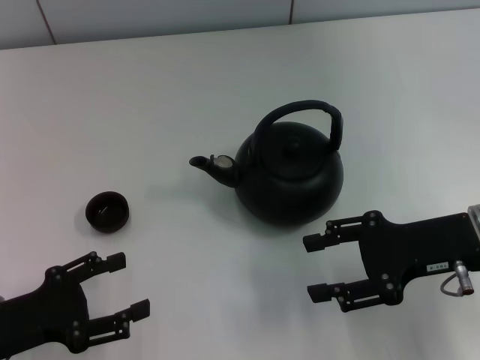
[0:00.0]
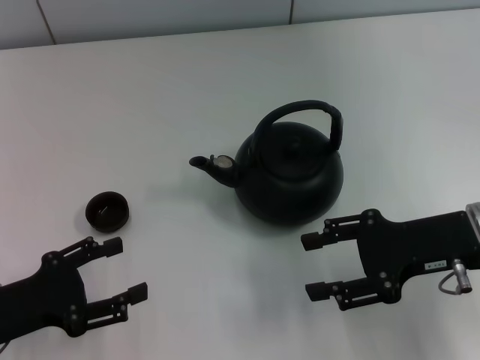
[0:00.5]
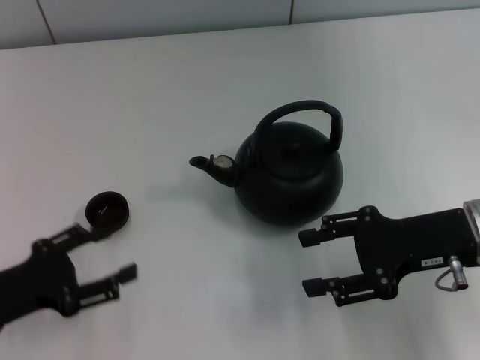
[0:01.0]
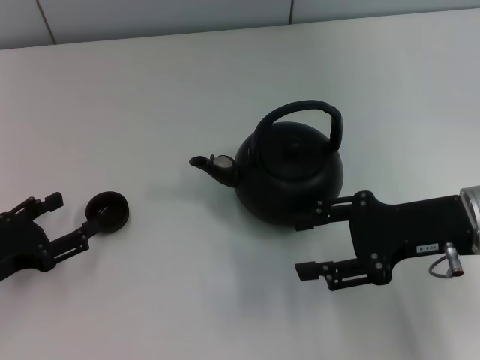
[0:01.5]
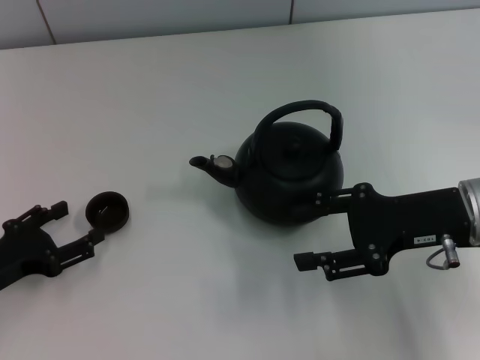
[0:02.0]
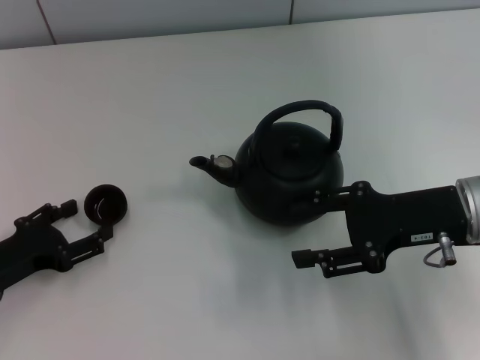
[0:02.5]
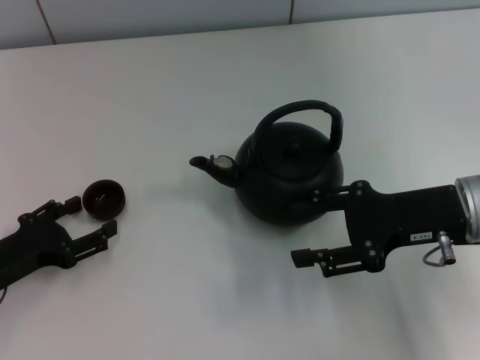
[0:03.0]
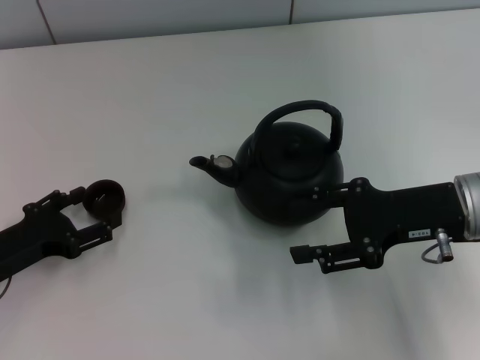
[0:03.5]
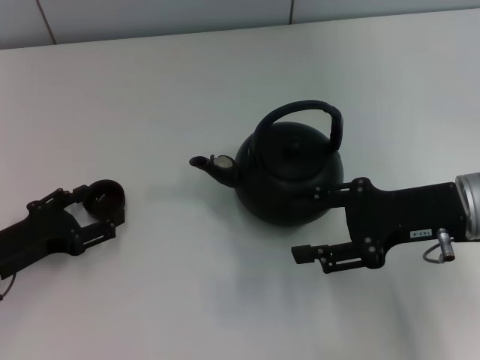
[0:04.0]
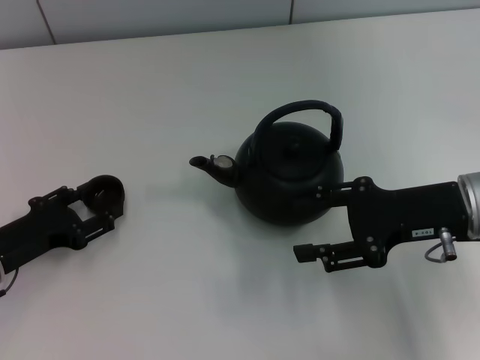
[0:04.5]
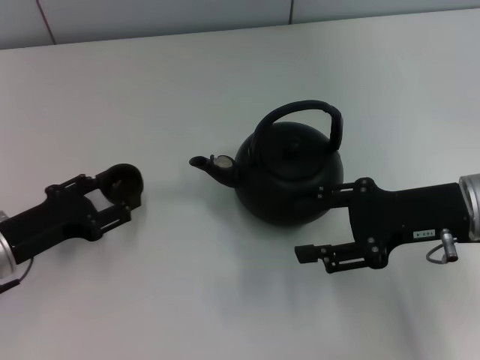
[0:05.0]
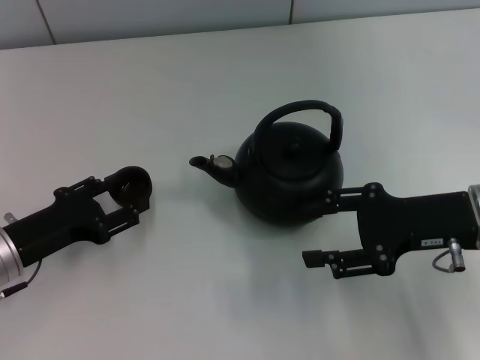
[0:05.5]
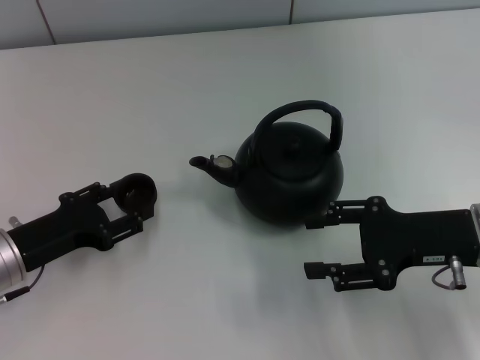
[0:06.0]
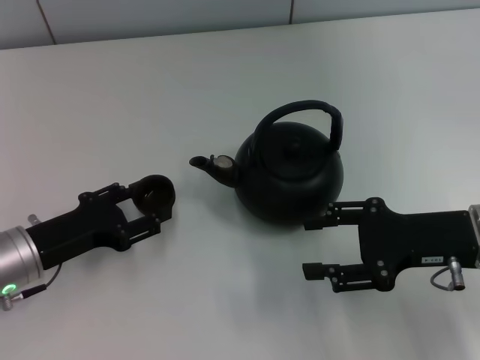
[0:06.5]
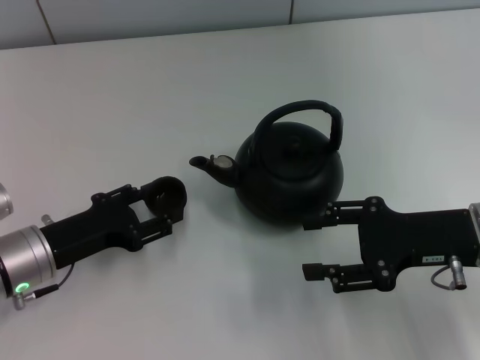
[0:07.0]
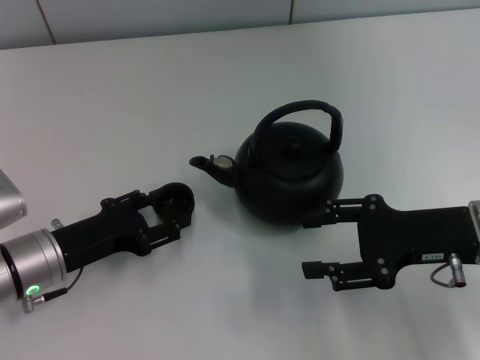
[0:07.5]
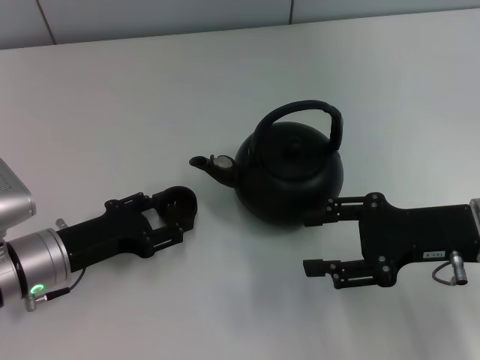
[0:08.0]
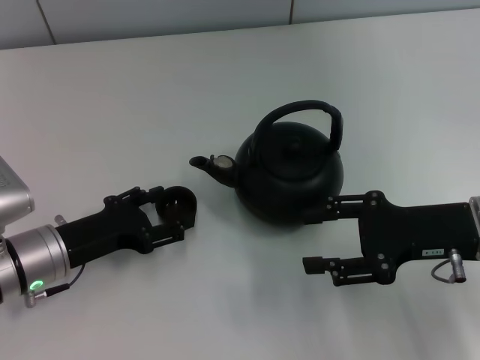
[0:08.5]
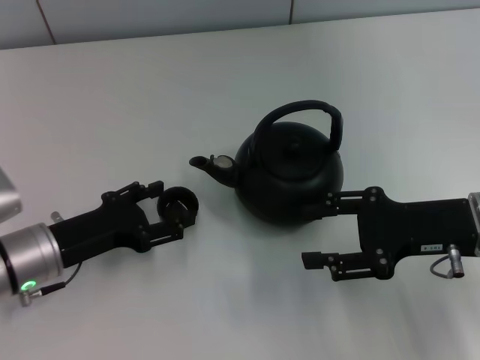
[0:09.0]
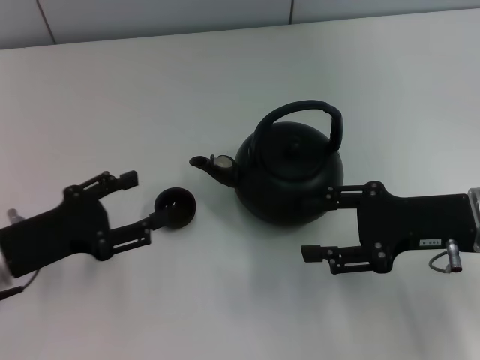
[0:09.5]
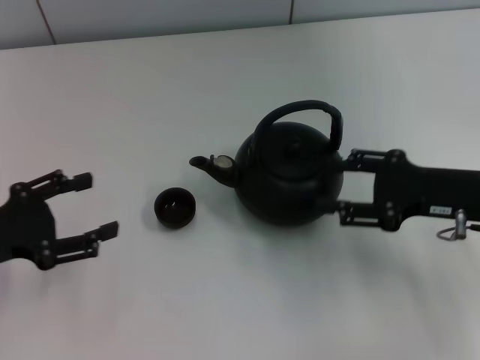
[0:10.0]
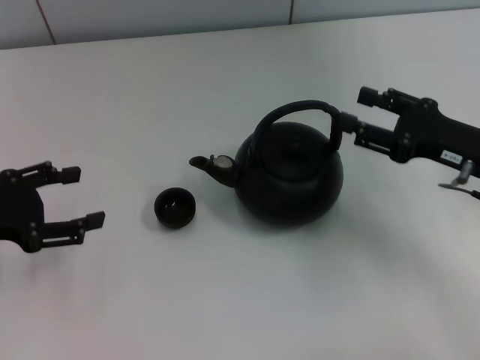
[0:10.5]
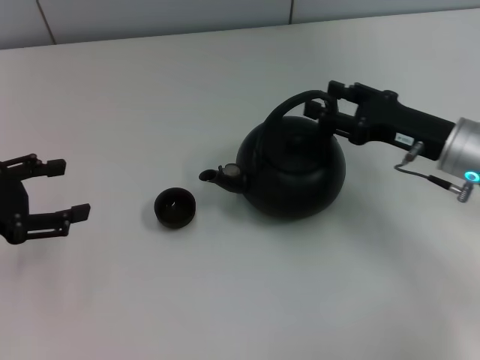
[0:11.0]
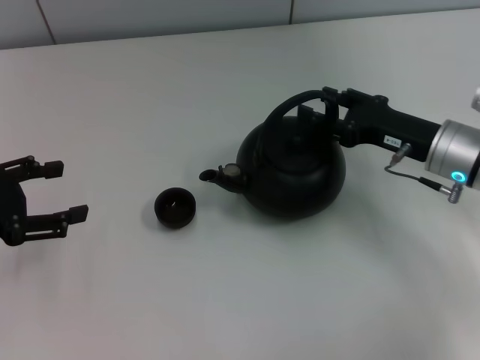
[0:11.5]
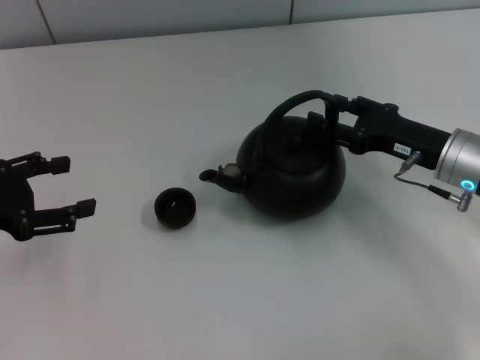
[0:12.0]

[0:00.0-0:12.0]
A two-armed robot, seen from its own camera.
Task of the whole recording: Grasp the handle of the teapot with one hand and pour tea into the teacup.
Step, 0:00.0 to 0:04.5: Pick up the teacup with the left gripper.
Step, 0:05.0 to 0:09.0: Place the teacup in the center of view with the left gripper.
0:02.0 to 0:04.0: The grippers make only small movements.
0:04.0 to 0:06.0: The left gripper closes.
0:06.0 to 0:08.0: The left gripper opens.
0:08.0 to 0:10.0: The left gripper heads to the left and upward, covering roughly 10 cm, and opens up.
0:10.0 to 0:12.0: The right gripper changes place by roughly 5 cm.

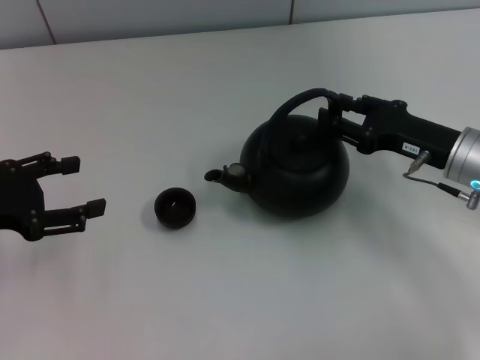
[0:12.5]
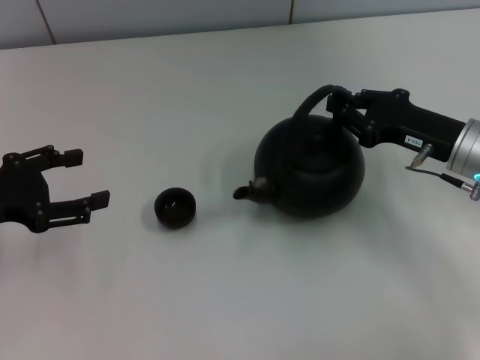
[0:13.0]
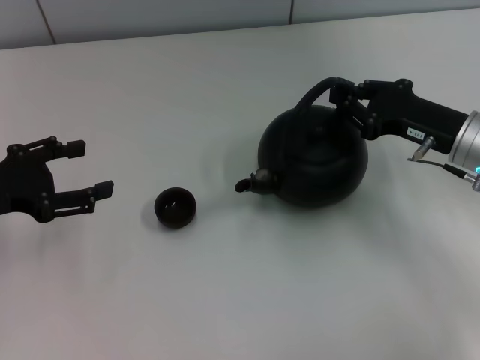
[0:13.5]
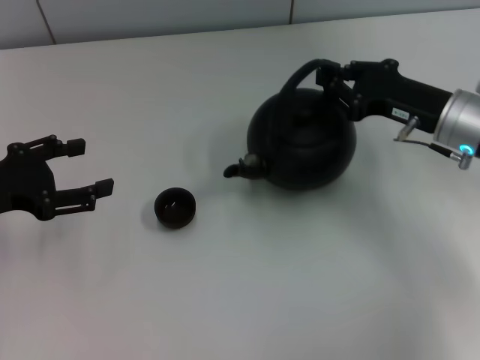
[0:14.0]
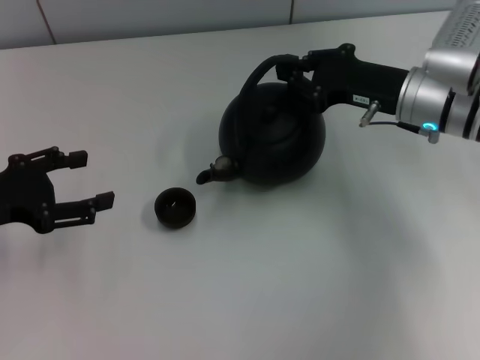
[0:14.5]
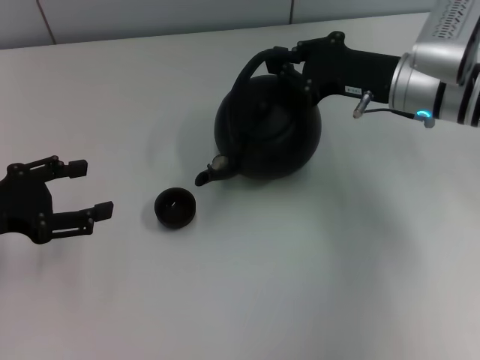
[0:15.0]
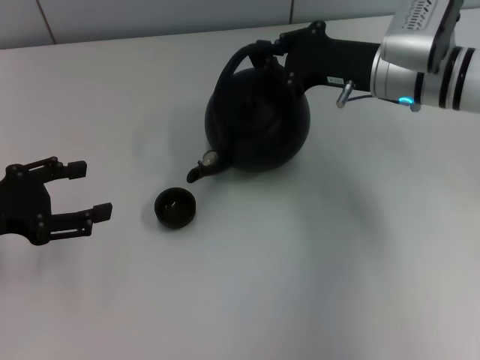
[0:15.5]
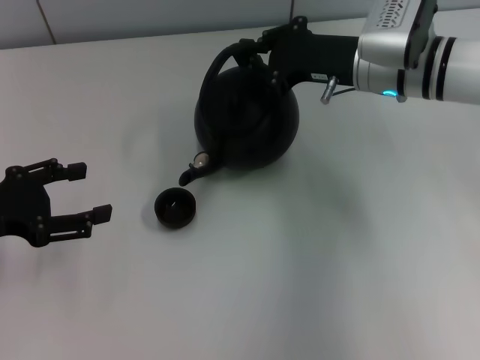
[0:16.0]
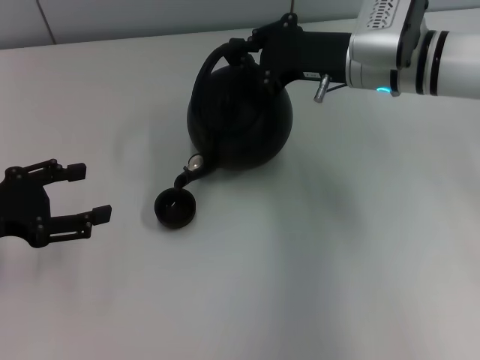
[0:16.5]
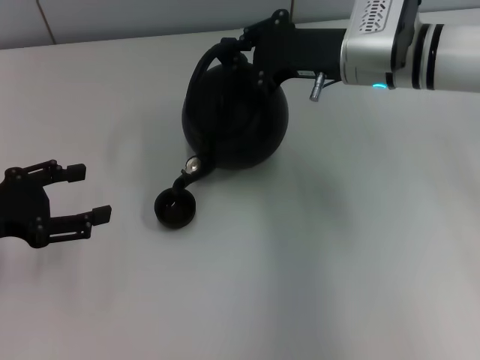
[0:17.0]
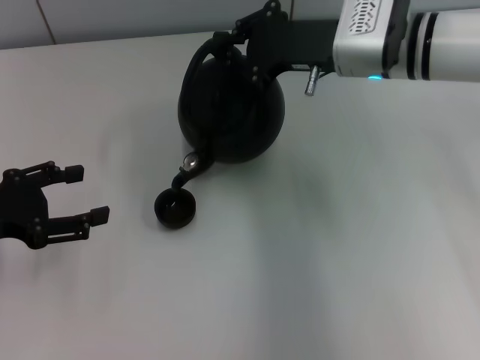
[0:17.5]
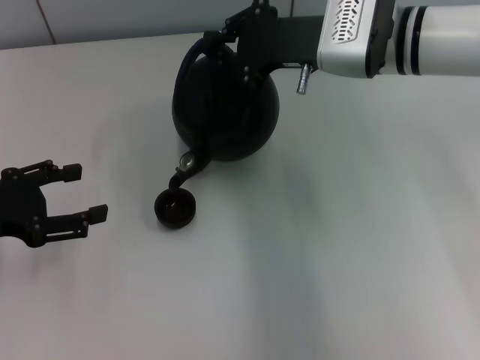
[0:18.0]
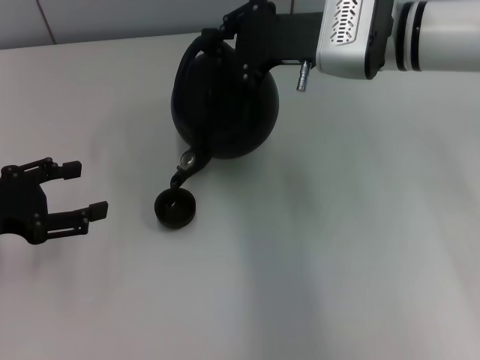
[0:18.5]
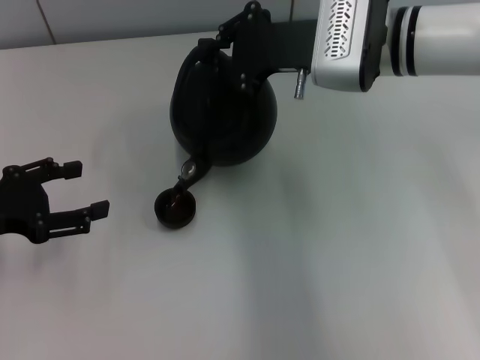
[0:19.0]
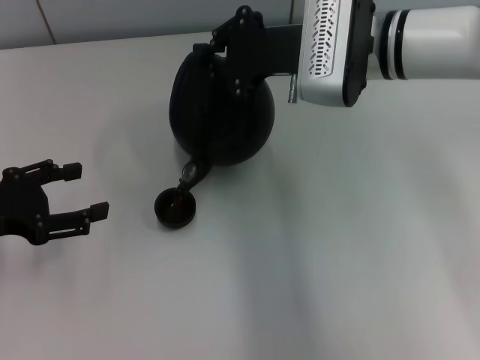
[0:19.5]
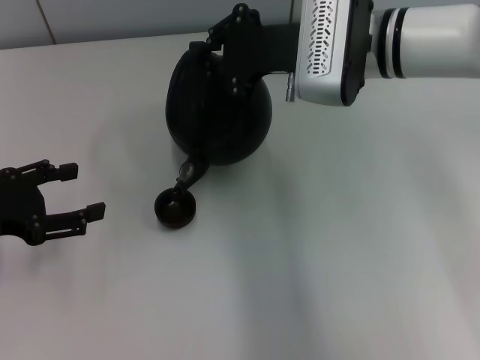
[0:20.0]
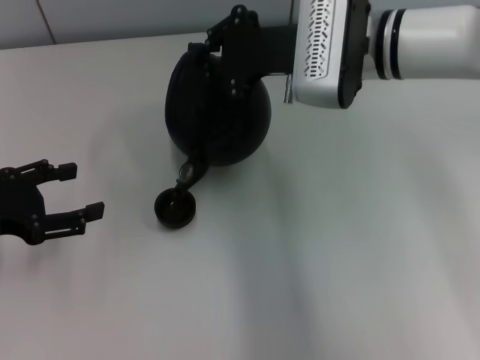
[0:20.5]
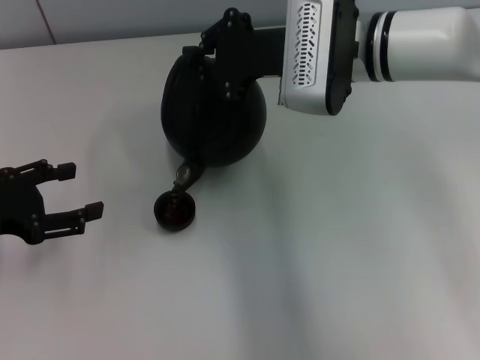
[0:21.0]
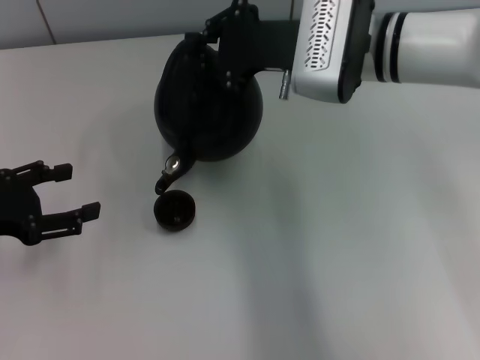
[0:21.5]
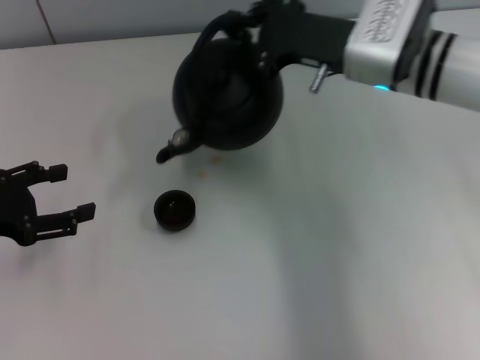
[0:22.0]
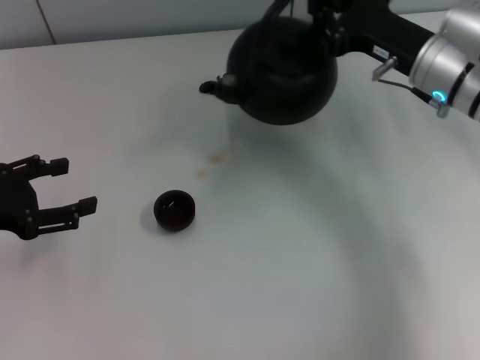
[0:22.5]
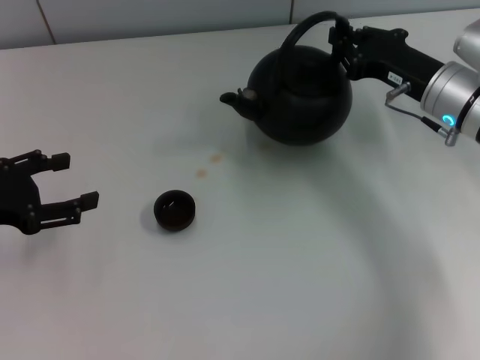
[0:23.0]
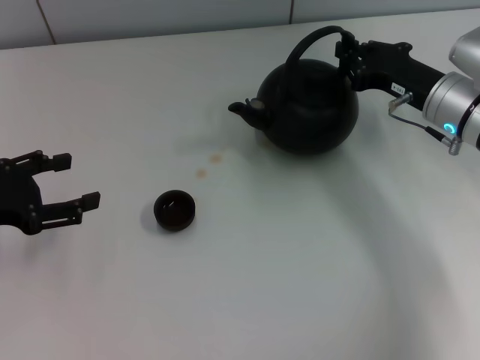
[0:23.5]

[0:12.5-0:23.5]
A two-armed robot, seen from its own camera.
Task of the whole recording: Grasp the handle of the teapot with one hand and pour tea into the teacup.
0:12.5 to 0:14.5: The right gripper goes roughly 5 cm forward, and closes up.
0:14.5 to 0:16.0: The right gripper shifts by approximately 5 cm.
0:16.0 to 0:18.0: The grippers make only small movements.
0:18.0 to 0:21.5: The grippers stay close to where they were, moving slightly.
0:21.5 to 0:23.5: The right gripper travels to the right and downward by some 15 cm.

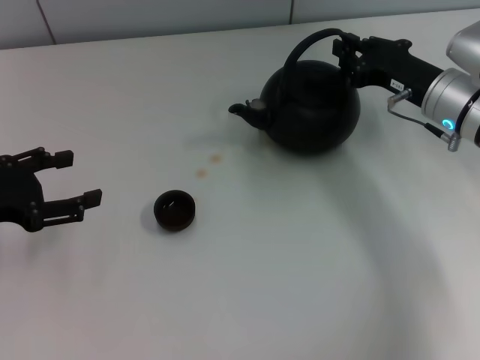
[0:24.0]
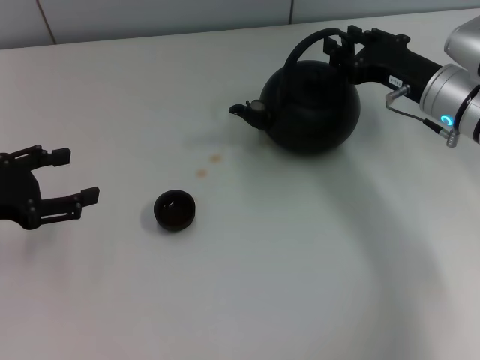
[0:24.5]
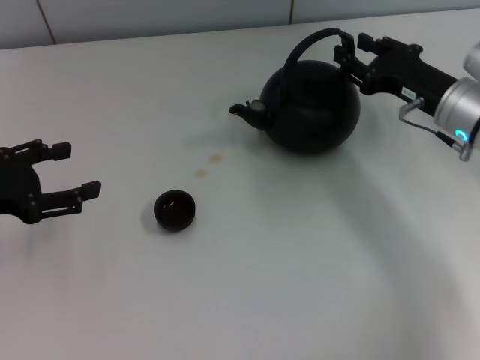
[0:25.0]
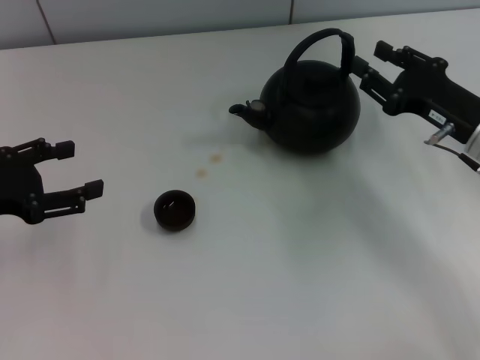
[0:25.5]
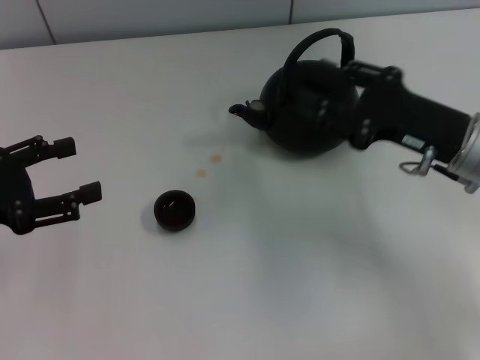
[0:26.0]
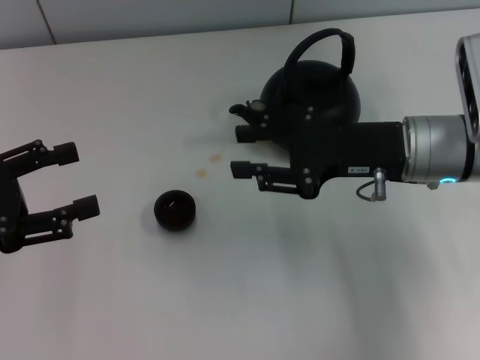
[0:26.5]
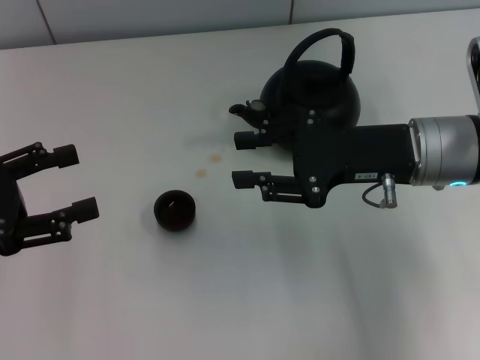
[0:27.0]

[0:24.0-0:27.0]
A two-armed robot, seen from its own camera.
Task of the whole recording: Grasp the handle of the teapot with one hand and pour tea into the teacup.
0:24.0 to 0:25.5: The right gripper moves backward, approximately 5 cm, and opens its fingers.
0:25.5 to 0:27.0: The right gripper goes approximately 10 cm to the left and upward.
